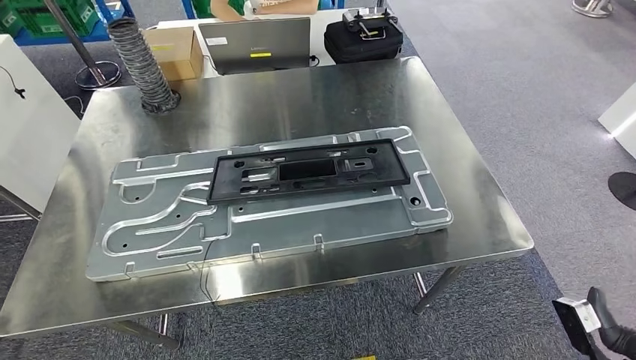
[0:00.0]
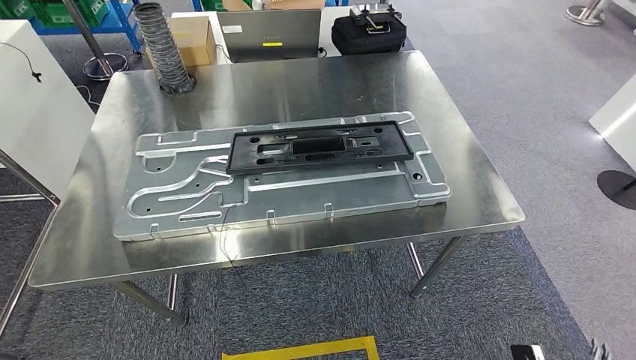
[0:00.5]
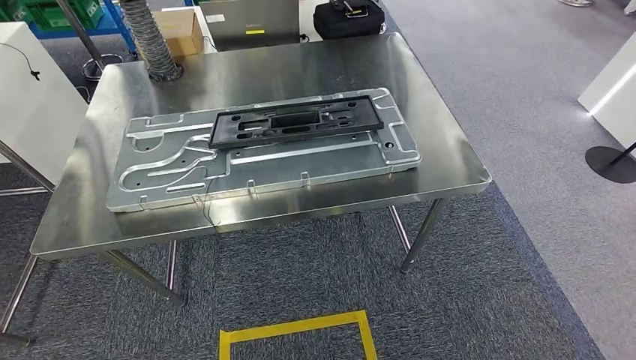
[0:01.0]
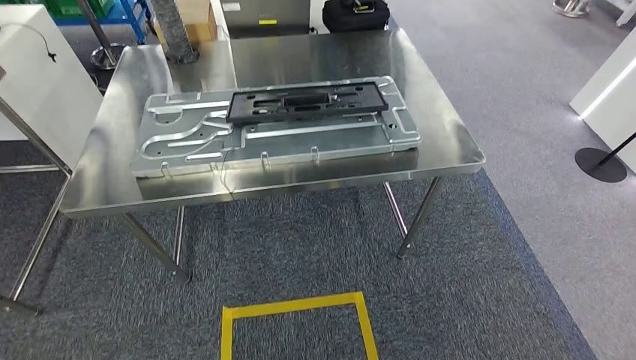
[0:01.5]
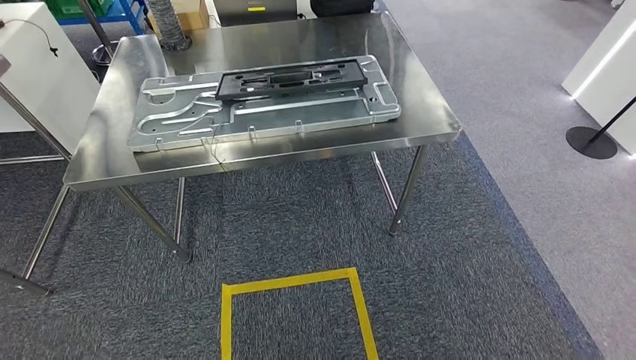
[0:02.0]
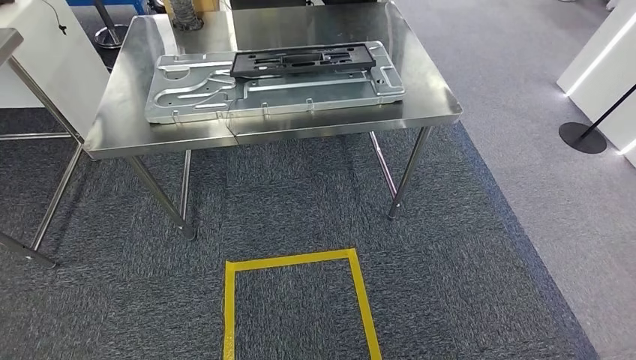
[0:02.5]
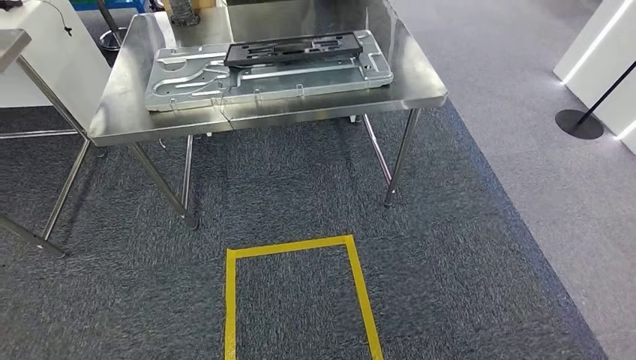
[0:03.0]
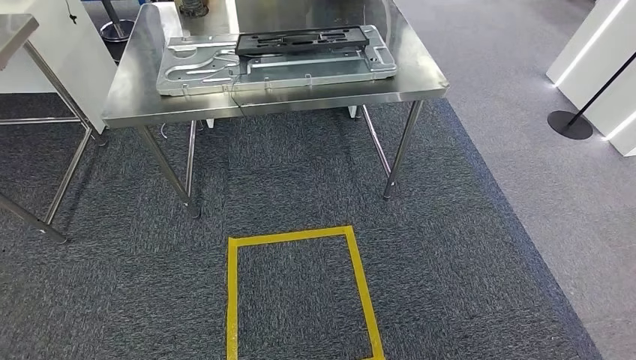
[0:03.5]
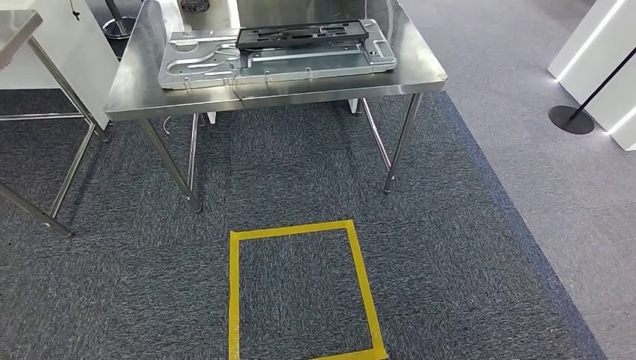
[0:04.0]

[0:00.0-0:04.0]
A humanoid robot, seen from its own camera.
Step, 0:00.5 to 0:04.0: Move to the initial position of the shelf.
